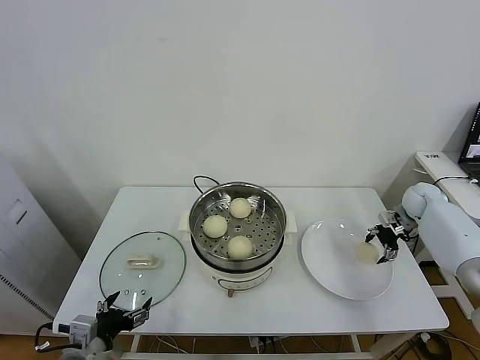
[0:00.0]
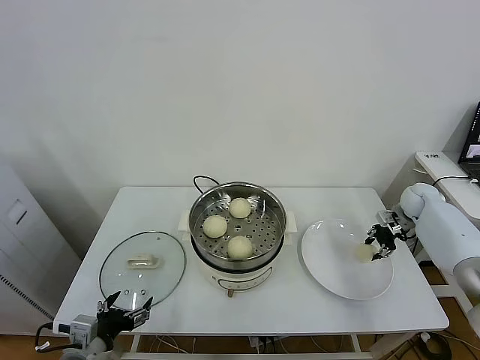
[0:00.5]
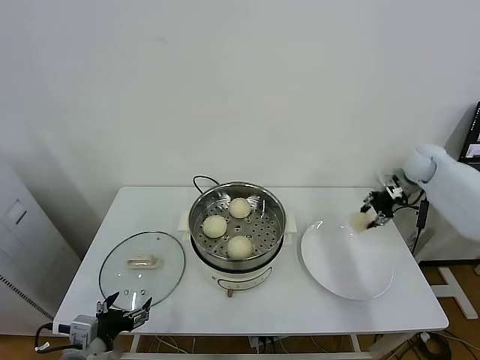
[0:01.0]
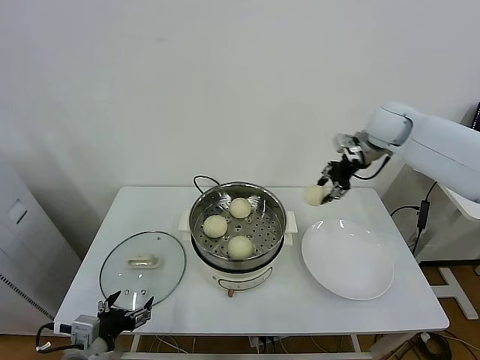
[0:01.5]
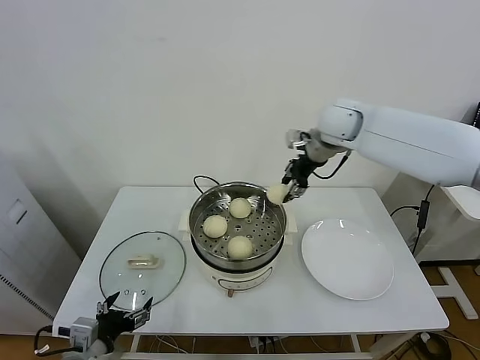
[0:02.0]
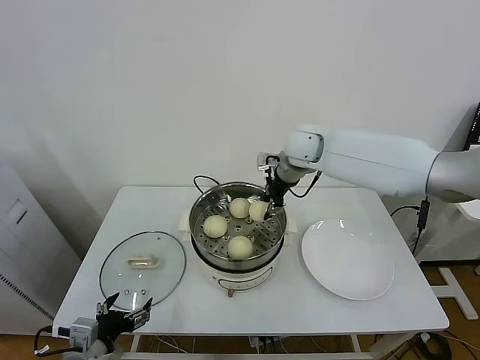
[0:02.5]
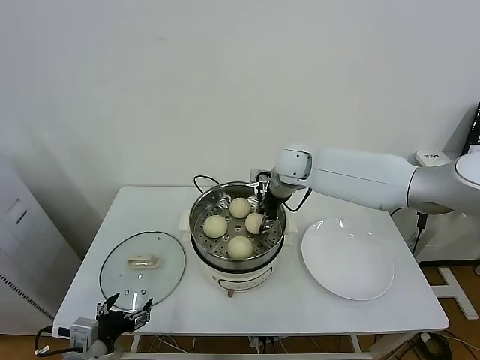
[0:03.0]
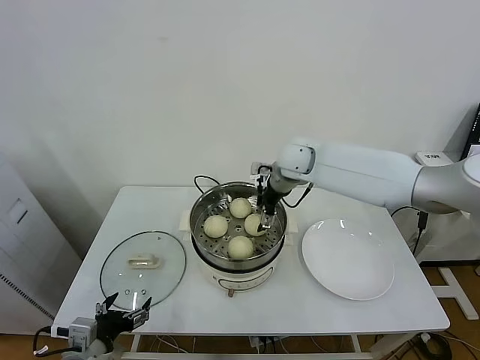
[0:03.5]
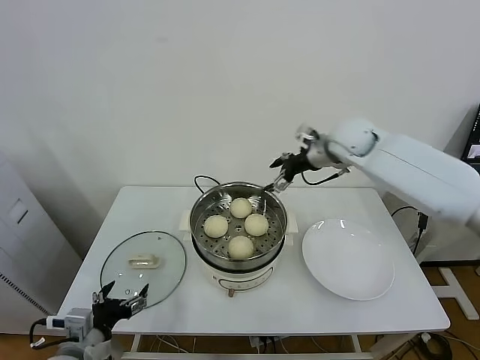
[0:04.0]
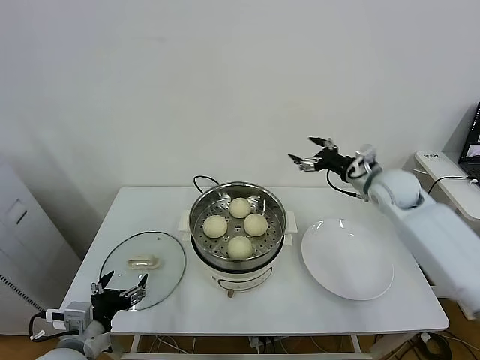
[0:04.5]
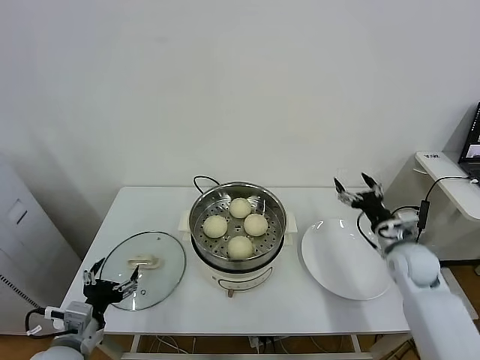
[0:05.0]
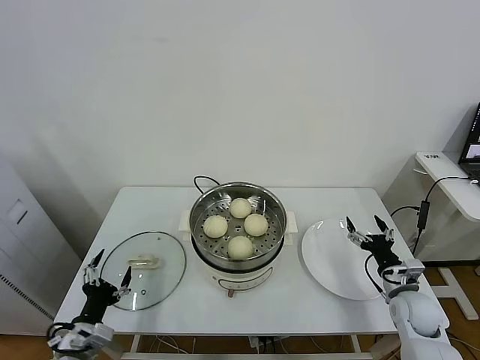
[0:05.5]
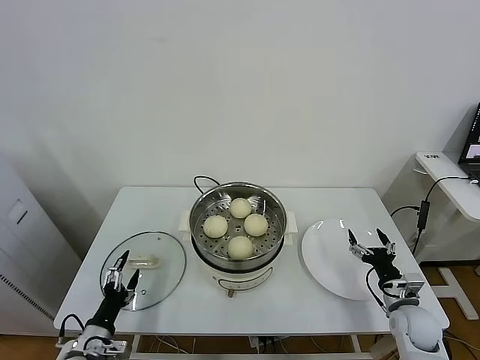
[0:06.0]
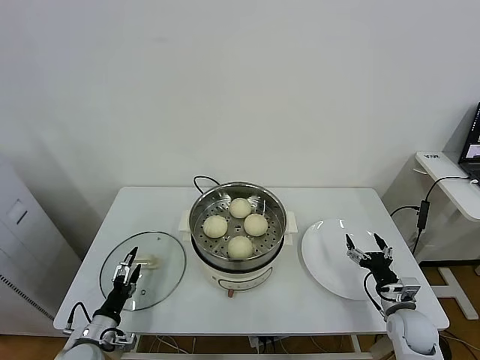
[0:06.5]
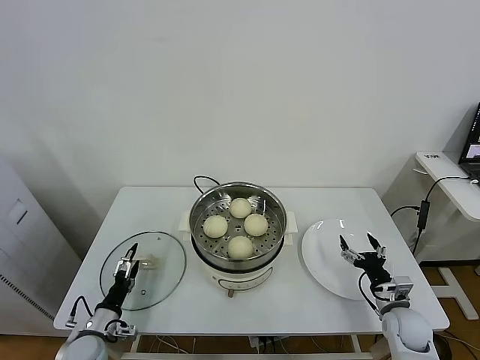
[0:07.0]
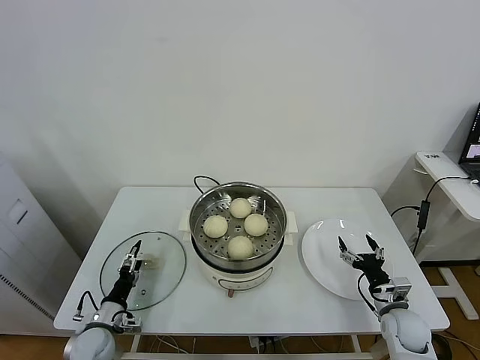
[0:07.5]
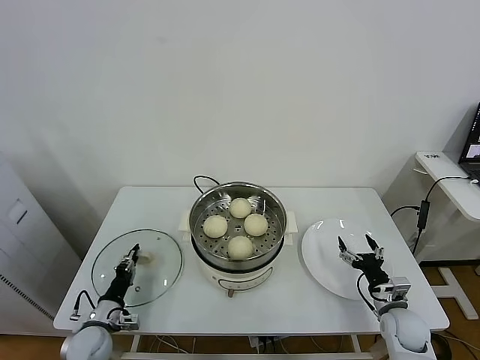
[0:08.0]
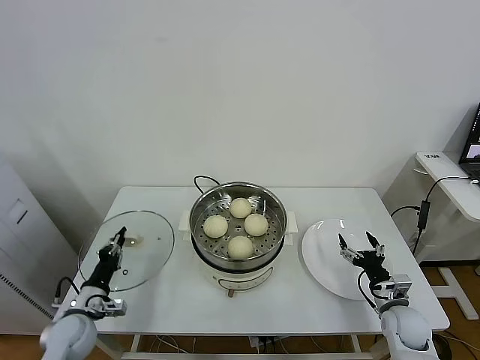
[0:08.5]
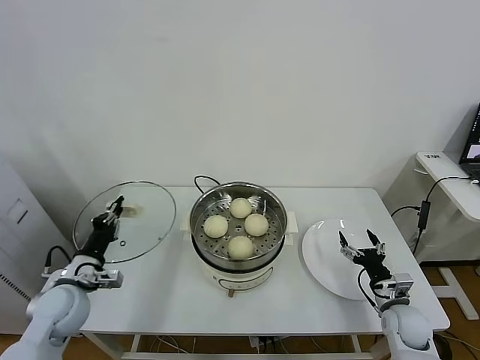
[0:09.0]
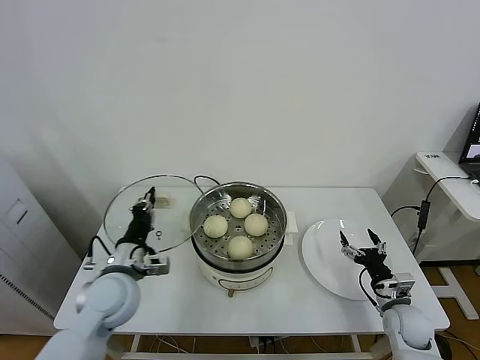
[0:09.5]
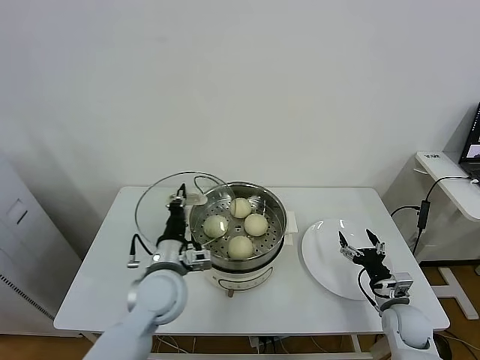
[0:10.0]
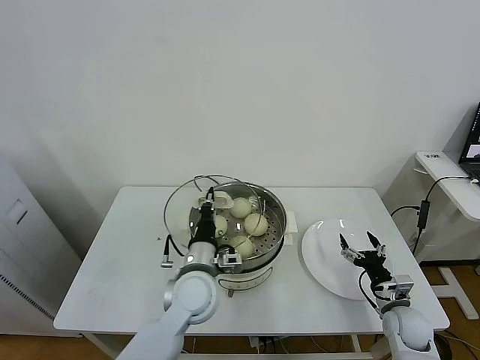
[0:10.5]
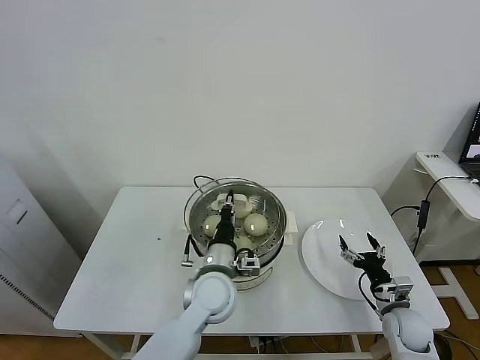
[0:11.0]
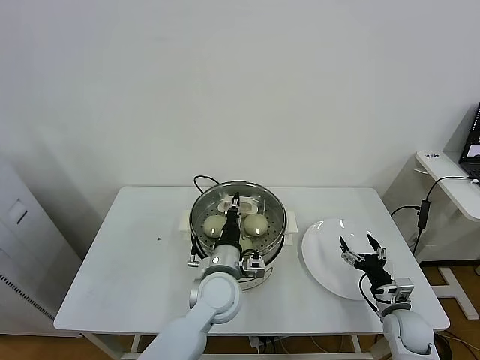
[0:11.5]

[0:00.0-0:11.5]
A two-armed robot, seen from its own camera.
Task of the whole recording: take steamed baozi put them in steamer.
Step, 0:00.5 to 0:03.0: Place the baozi on the steamer with right gripper.
Step, 0:04.0 to 0:08.0: Grasp the pot lid with left gripper.
0:00.0 to 0:02.0: The right gripper heads to the left and upward, covering roughly 40 cm, and closes up.
0:02.0 to 0:04.0: The right gripper moves some 10 cm to the left and comes back, and opens up.
0:04.0 to 0:06.0: The right gripper is displaced downward, backward and to the right by some 50 cm. Meanwhile the left gripper moves downward, some 10 cm.
0:06.0 to 0:07.5: The left gripper travels forward and downward by some 10 cm.
0:07.5 to 0:09.5: The left gripper goes some 25 cm upward and to the right, and closes up.
0:09.5 to 0:11.5: The left gripper heads to the right, covering about 20 cm.

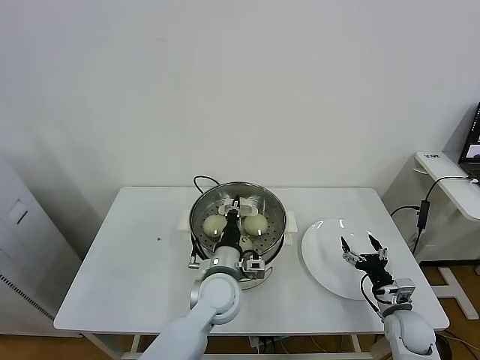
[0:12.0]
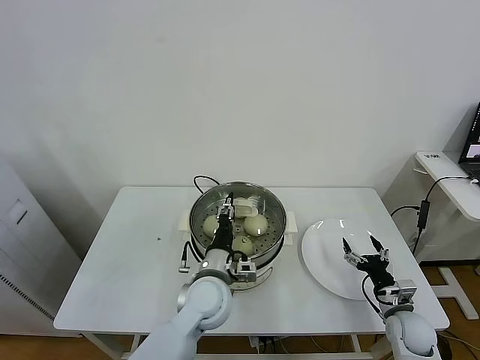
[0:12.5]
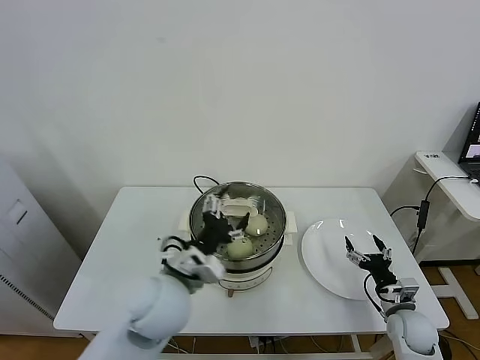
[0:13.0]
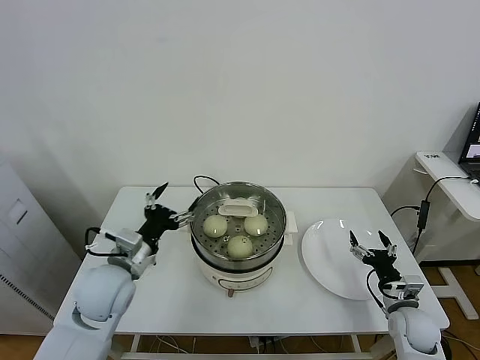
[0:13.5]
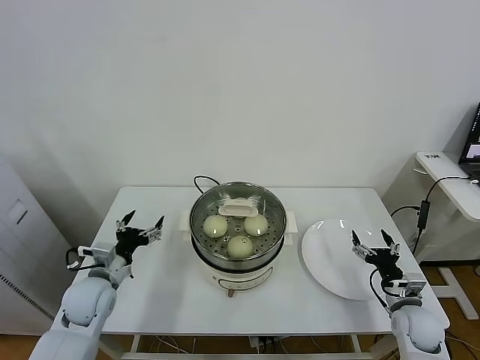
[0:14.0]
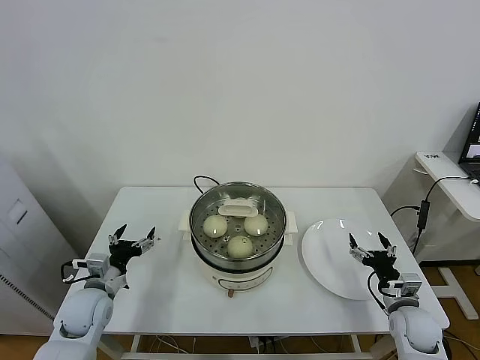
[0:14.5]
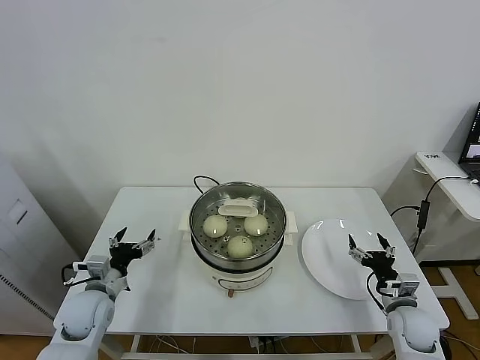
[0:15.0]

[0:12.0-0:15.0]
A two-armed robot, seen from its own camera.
Task of the whole recording: take steamed baozi put them in steamer.
0:12.0 to 0:13.5: The left gripper travels to the left and upward by roughly 20 cm, and opens up.
0:13.5 to 0:15.0: The left gripper moves downward and to the left, roughly 15 cm.
